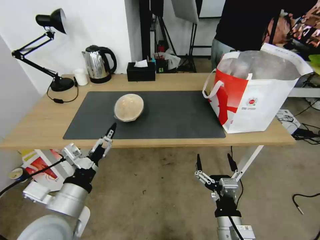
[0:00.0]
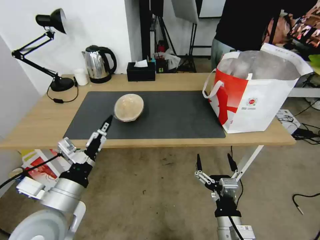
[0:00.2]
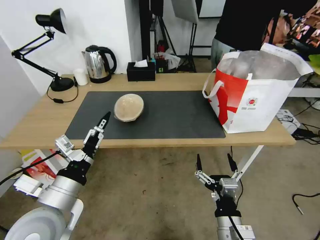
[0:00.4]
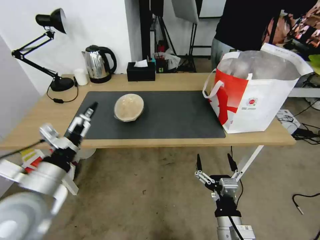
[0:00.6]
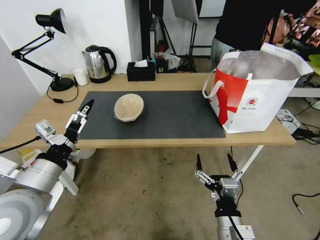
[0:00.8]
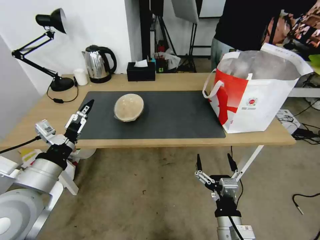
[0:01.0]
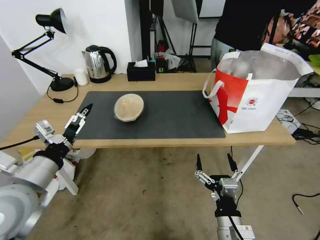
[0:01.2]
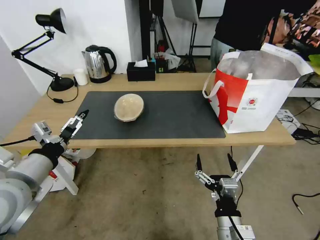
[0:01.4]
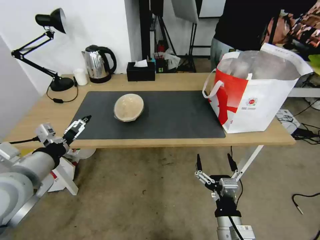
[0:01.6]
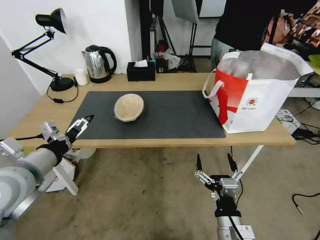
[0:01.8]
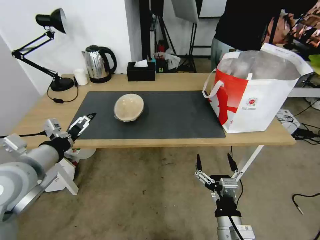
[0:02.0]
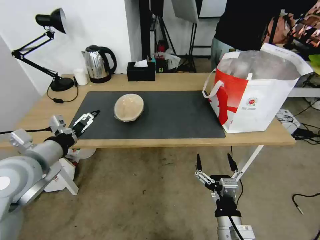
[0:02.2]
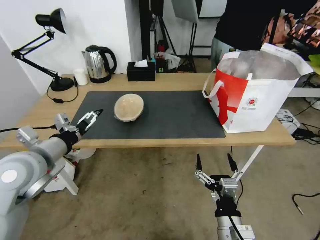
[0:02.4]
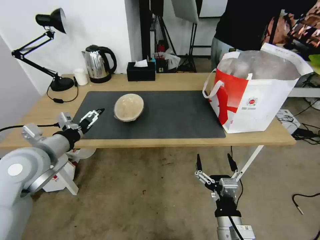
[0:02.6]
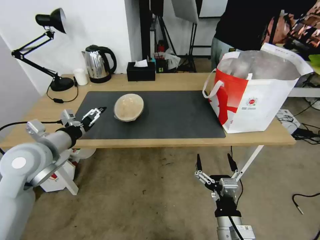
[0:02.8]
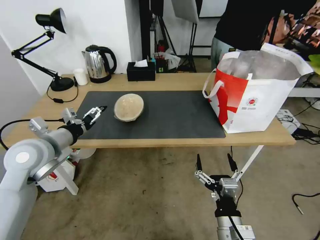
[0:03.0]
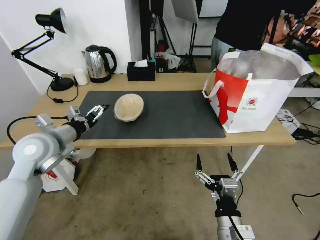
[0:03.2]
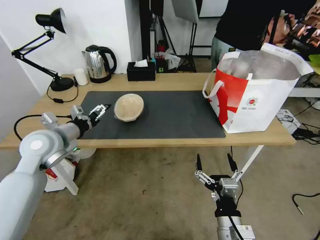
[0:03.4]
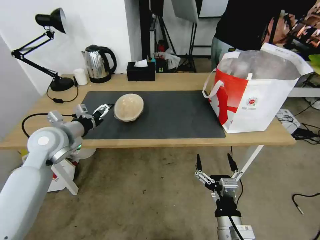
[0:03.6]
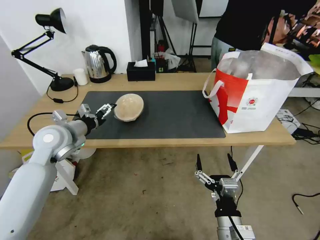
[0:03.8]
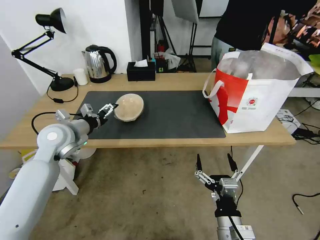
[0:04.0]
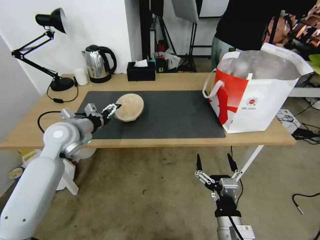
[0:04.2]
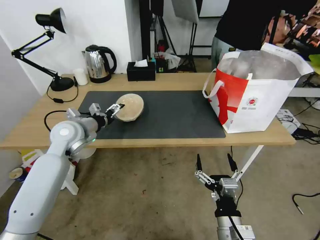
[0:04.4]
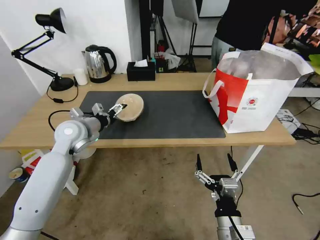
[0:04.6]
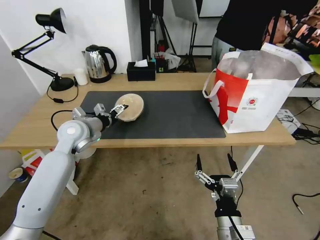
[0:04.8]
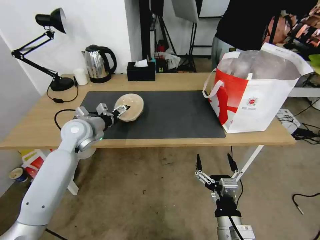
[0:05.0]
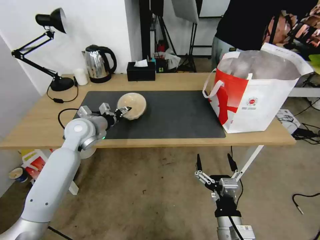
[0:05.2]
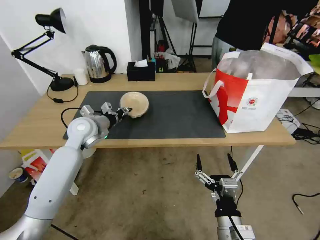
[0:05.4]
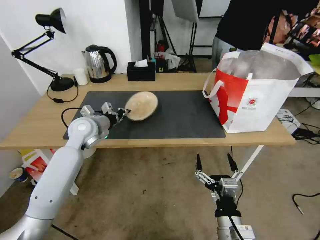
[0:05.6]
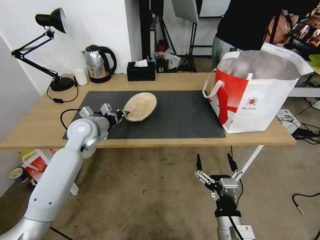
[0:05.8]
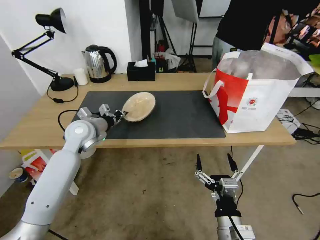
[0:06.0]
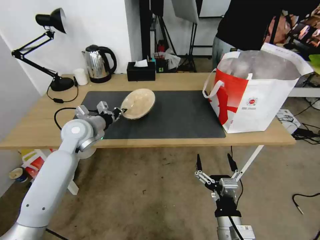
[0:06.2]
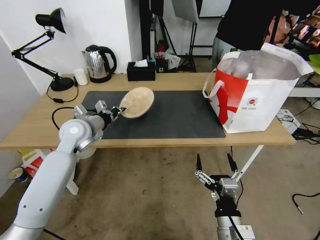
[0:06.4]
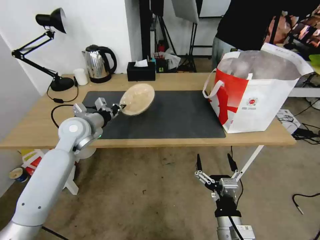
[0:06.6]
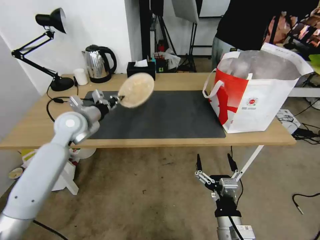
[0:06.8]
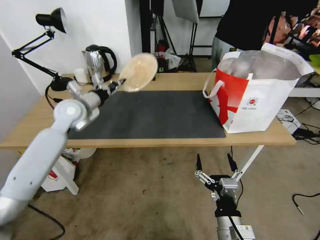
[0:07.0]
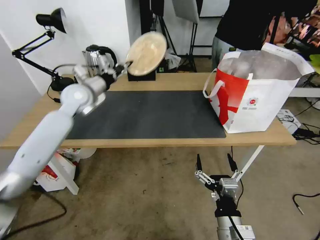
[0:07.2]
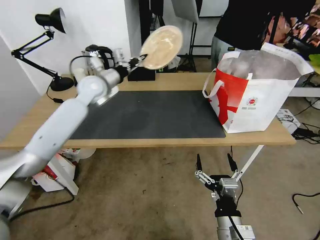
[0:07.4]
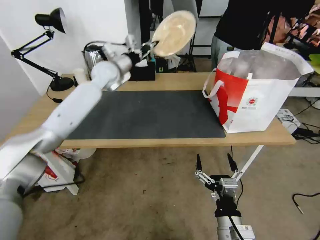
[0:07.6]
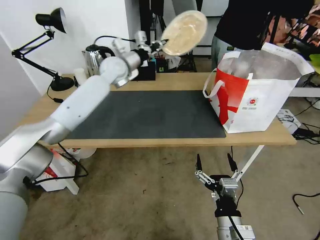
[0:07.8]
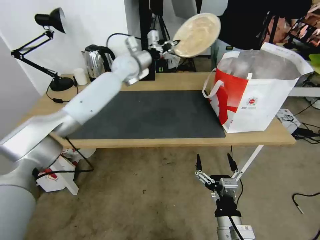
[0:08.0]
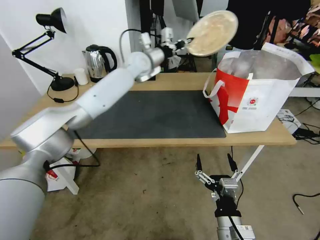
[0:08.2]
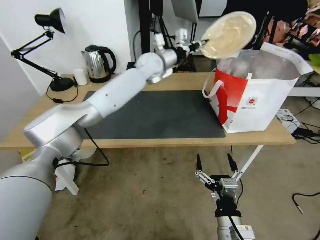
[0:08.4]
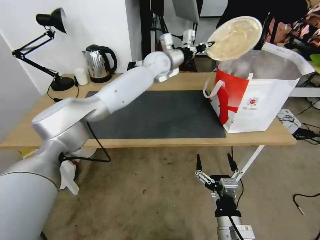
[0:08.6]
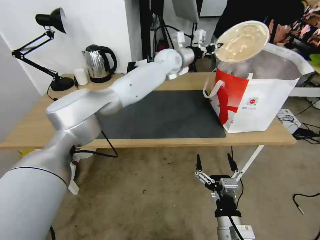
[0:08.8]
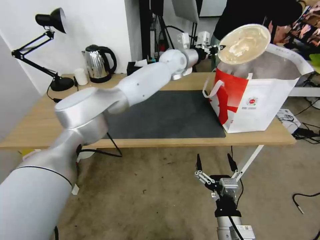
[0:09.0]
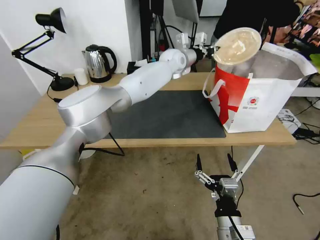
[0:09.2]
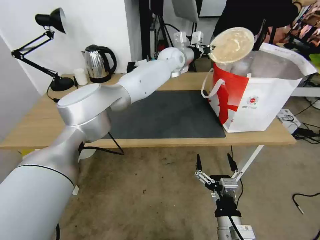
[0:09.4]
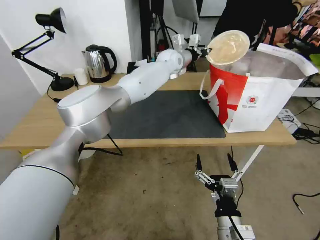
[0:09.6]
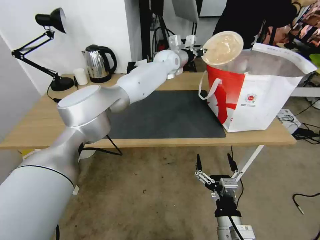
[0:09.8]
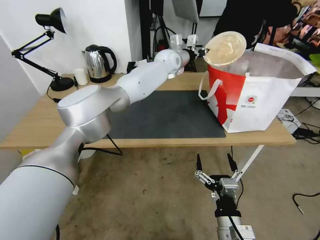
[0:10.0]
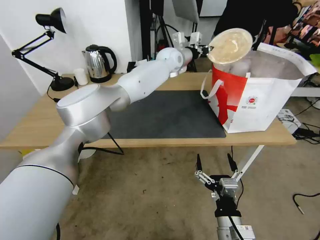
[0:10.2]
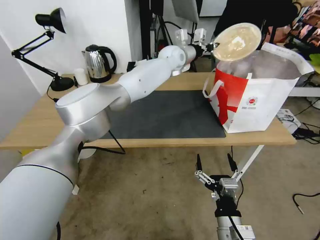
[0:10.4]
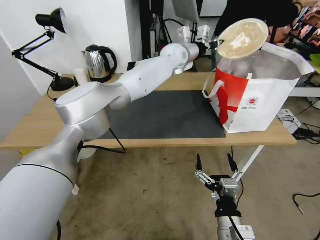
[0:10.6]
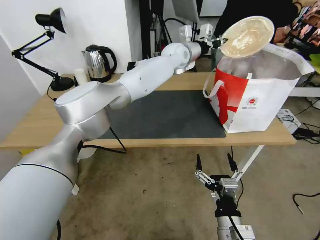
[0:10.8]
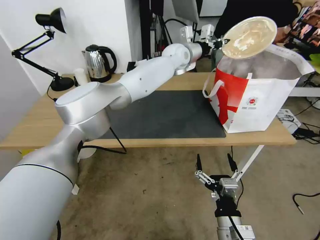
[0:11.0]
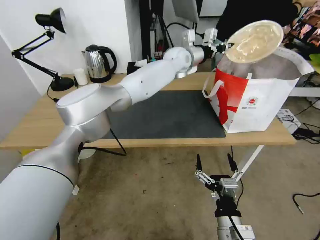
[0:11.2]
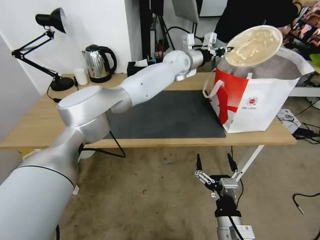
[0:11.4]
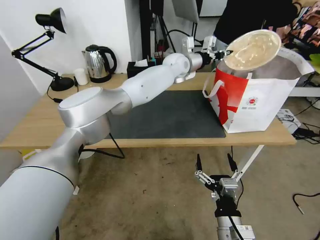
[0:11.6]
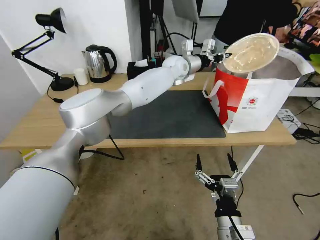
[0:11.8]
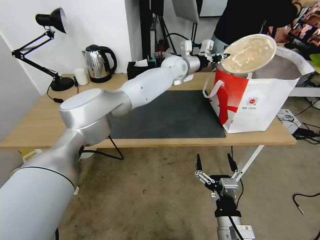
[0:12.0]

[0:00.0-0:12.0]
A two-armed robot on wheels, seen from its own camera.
Task of the whole recording: Pick up the trash from the table and place it into the takeout bag.
0:00.0 to 0:01.6: The left gripper moves to the left, forward and upward, approximately 15 cm.
0:01.6 to 0:03.0: The left gripper goes roughly 10 cm forward.
0:03.0 to 0:04.4: The left gripper shifts some 10 cm forward.
0:04.4 to 0:06.0: The left gripper closes up.
0:06.0 to 0:07.6: The left gripper goes approximately 20 cm forward, upward and to the right.
0:07.6 to 0:09.0: The left gripper is displaced to the right by approximately 25 cm.
0:09.0 to 0:12.0: The grippers move only a little.

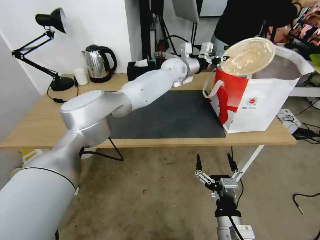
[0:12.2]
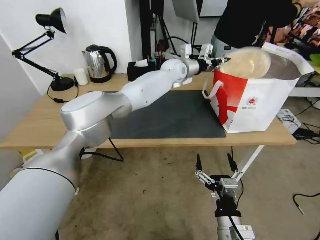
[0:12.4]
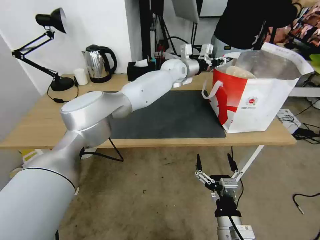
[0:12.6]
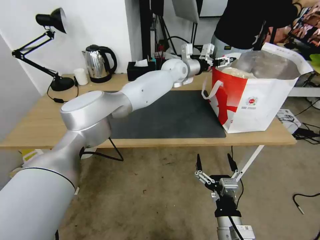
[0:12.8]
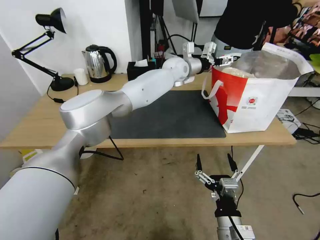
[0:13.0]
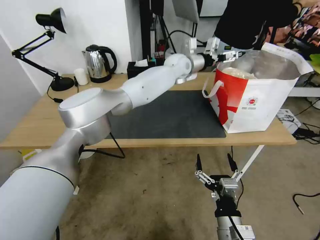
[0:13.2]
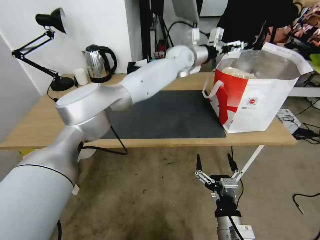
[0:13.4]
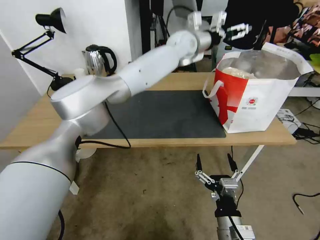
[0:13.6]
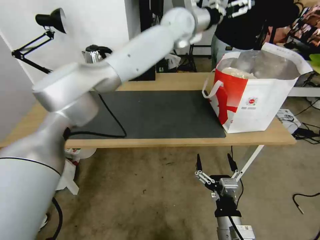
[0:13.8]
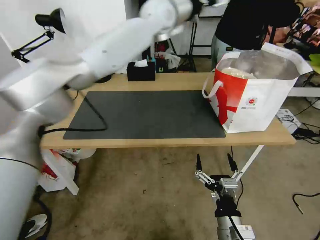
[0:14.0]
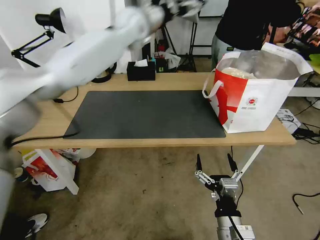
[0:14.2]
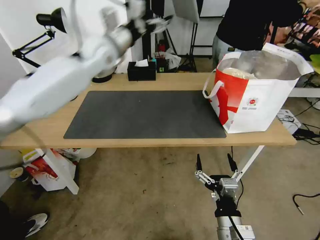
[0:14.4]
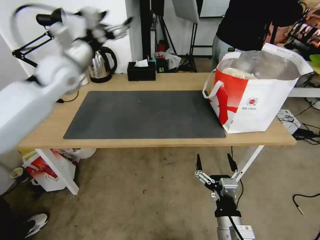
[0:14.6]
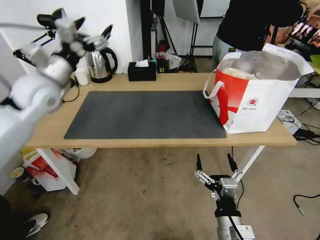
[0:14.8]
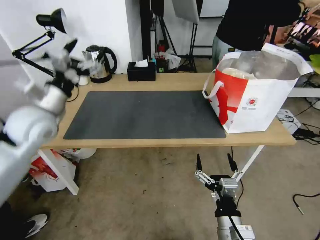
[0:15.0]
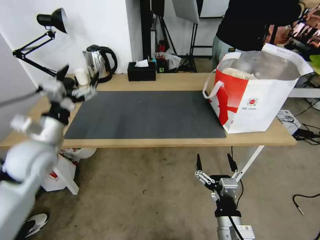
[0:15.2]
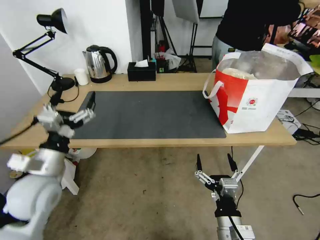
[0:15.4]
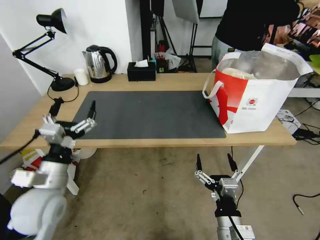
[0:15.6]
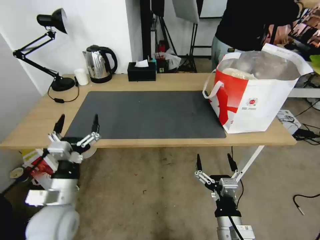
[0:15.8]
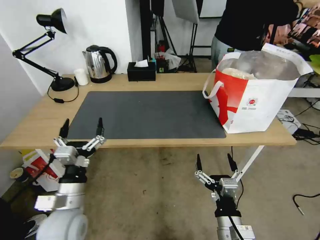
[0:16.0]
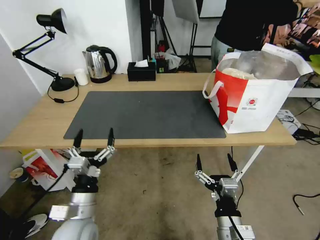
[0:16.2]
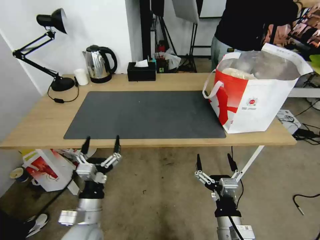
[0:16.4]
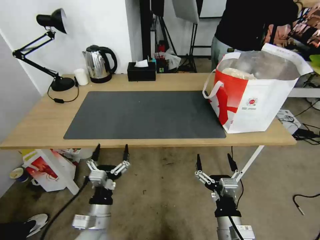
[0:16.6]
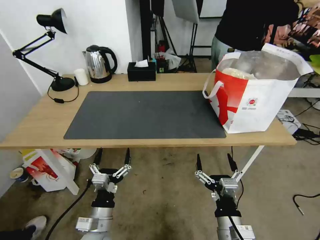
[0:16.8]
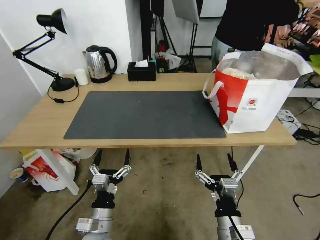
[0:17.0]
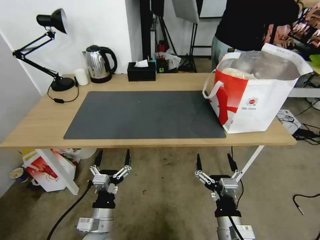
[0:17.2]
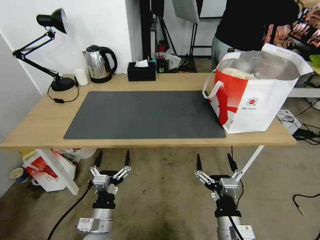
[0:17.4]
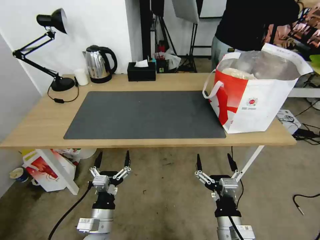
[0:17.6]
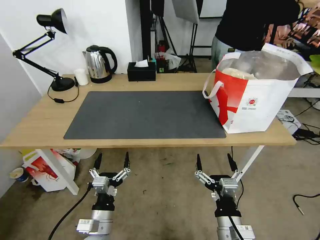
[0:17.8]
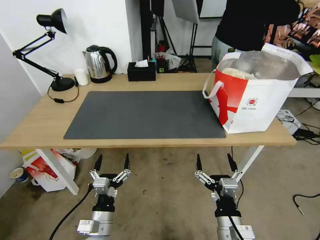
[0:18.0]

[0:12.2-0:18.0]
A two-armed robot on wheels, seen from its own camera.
Task of the whole recording: Pick up the trash from the table and place it into the takeout bag.
0:12.2 to 0:13.6: The left gripper goes about 10 cm upward, and opens.
0:13.6 to 0:15.0: The left gripper travels to the left and backward by roughly 50 cm.
0:15.0 to 0:16.6: The left gripper heads downward, backward and to the right, covering some 40 cm.
0:16.6 to 0:18.0: The grippers stay close to where they were, moving slightly.

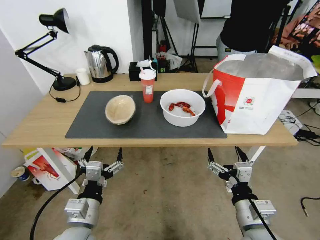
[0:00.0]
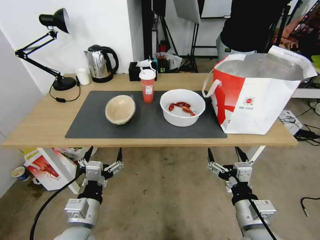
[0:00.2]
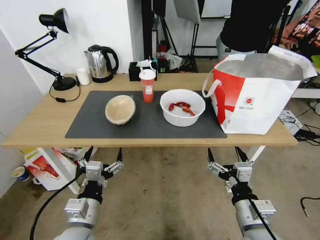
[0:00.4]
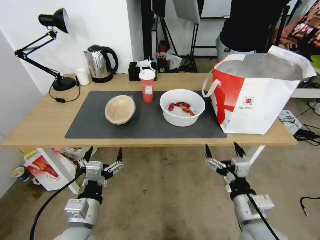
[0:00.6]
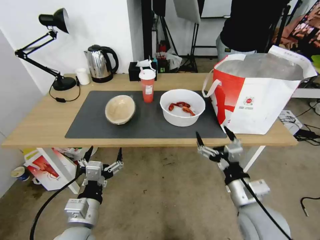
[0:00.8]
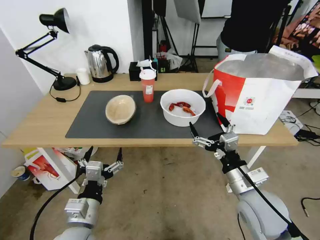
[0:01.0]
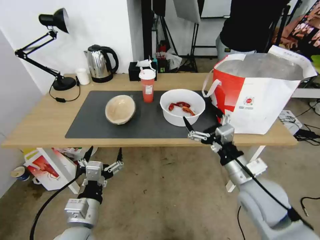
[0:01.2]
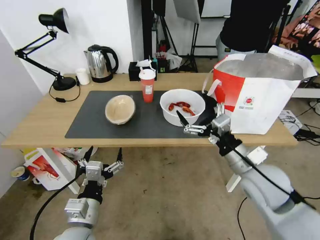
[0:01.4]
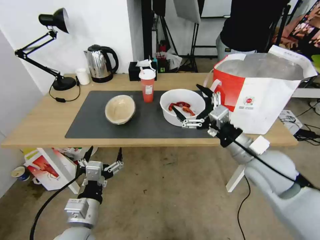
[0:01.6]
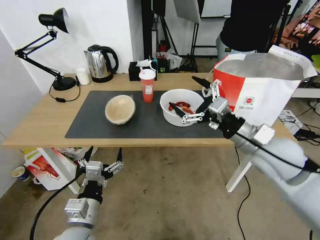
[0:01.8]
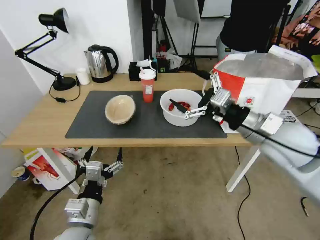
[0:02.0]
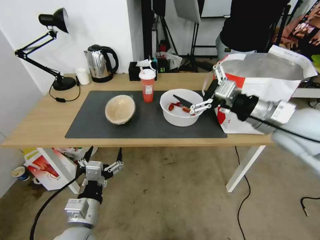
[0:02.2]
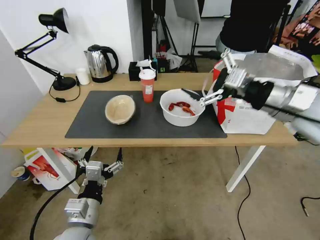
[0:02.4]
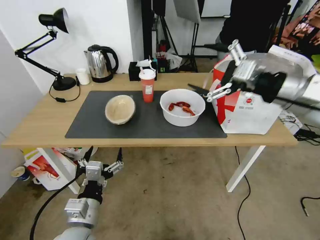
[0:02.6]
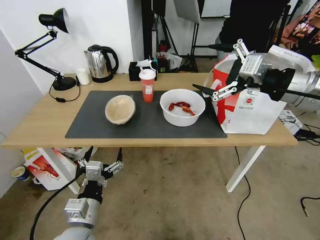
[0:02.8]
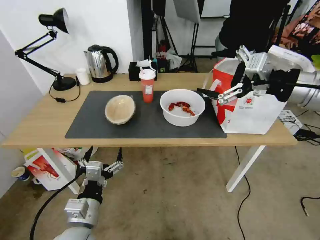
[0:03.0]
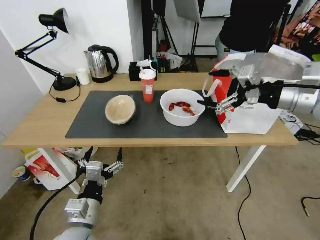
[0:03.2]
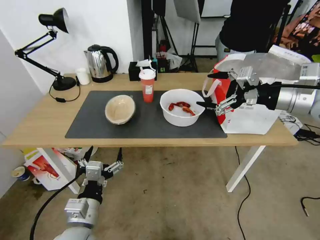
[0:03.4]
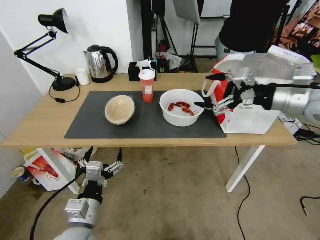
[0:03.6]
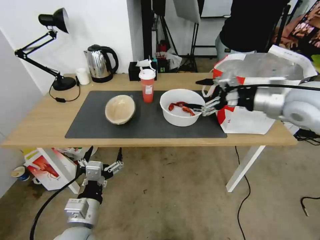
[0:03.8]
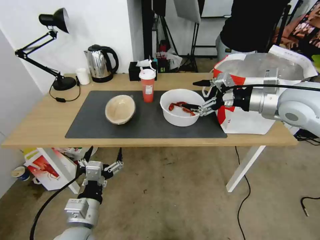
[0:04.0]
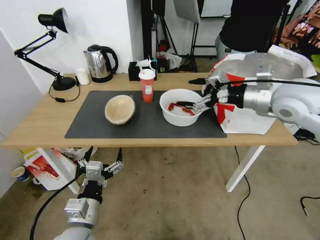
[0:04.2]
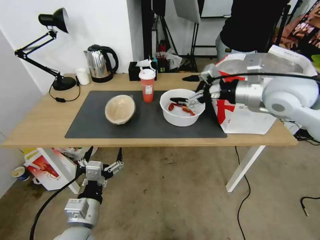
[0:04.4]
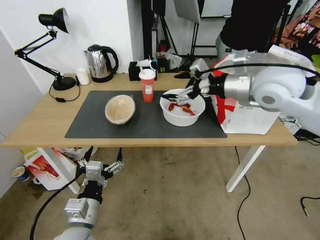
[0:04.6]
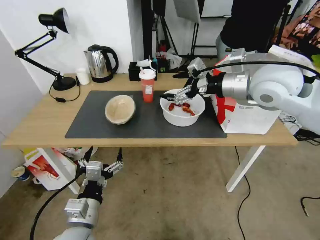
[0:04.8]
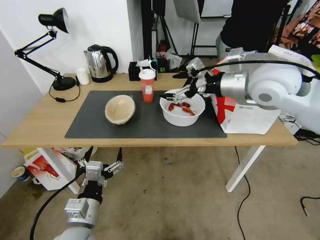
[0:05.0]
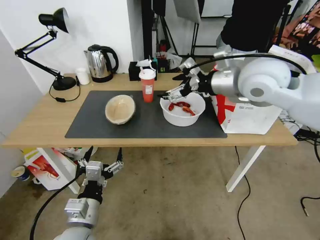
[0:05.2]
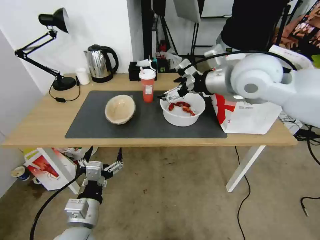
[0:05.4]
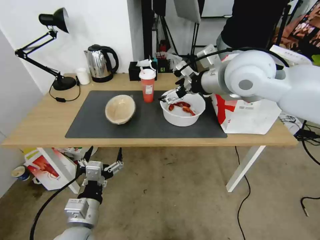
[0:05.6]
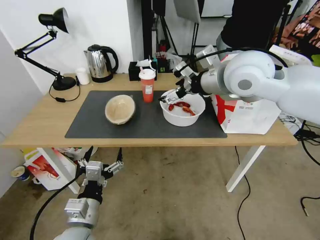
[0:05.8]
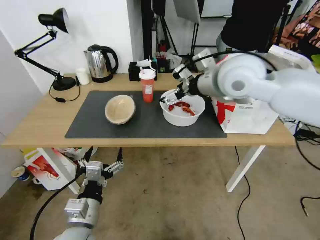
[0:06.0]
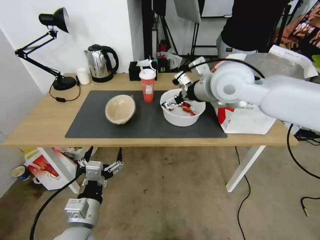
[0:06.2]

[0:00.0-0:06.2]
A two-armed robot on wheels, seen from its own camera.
Task of the whole recording: Pick up the trash from the table and place it into the takeout bag.
0:01.6 to 0:03.2: The right gripper shifts approximately 20 cm upward and to the right.
0:03.2 to 0:04.6: The right gripper is displaced to the left and forward by some 10 cm.
0:04.6 to 0:06.2: The right gripper goes roughly 10 cm to the left.
